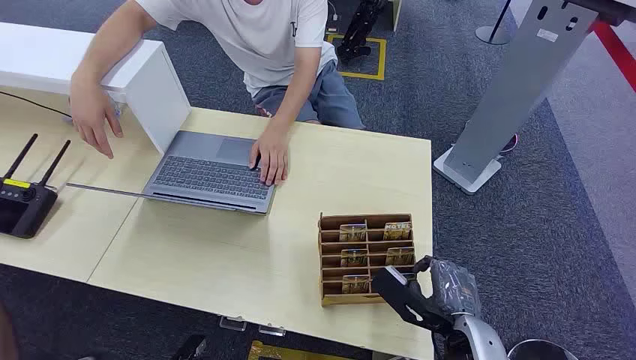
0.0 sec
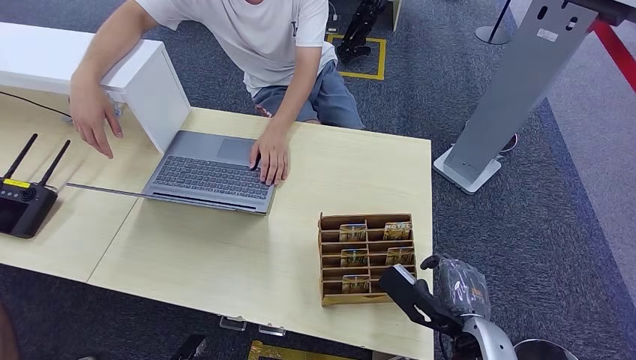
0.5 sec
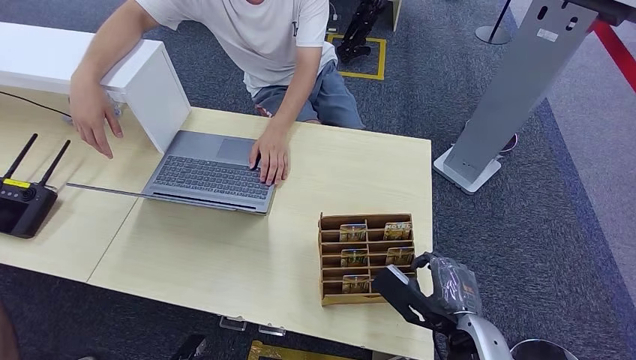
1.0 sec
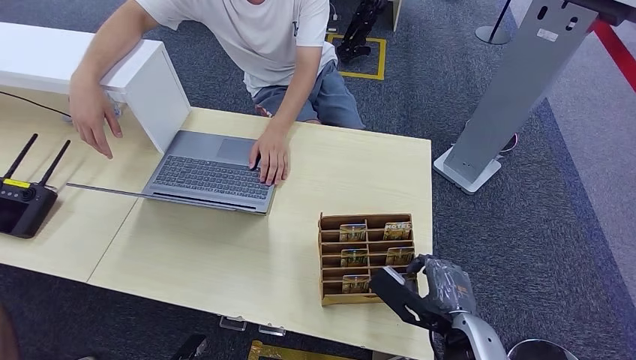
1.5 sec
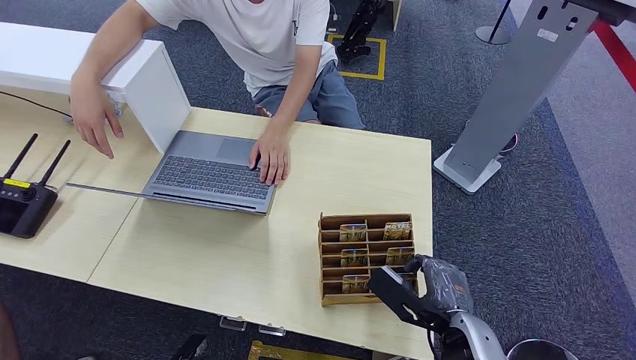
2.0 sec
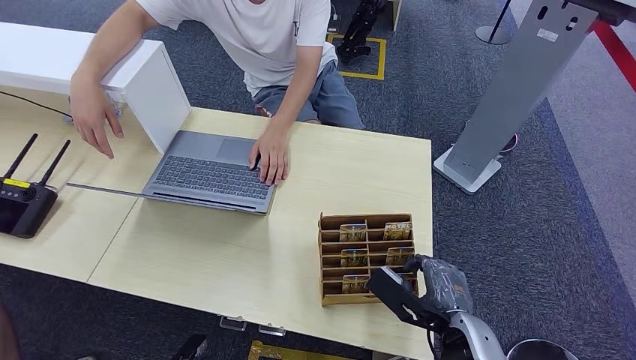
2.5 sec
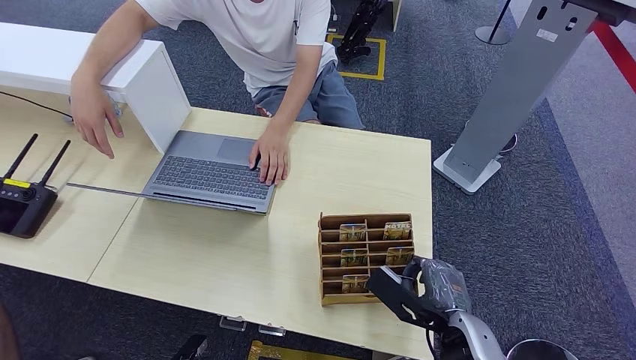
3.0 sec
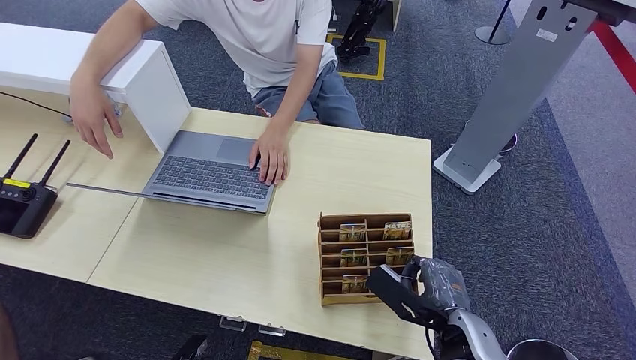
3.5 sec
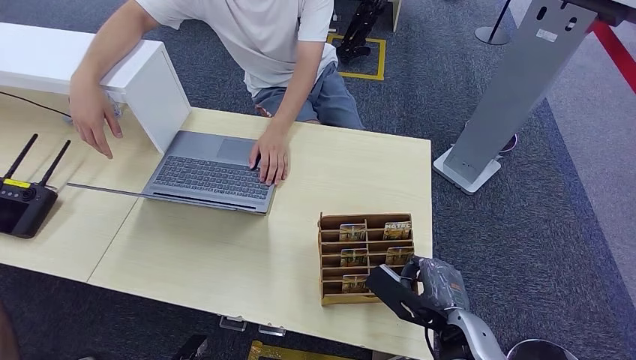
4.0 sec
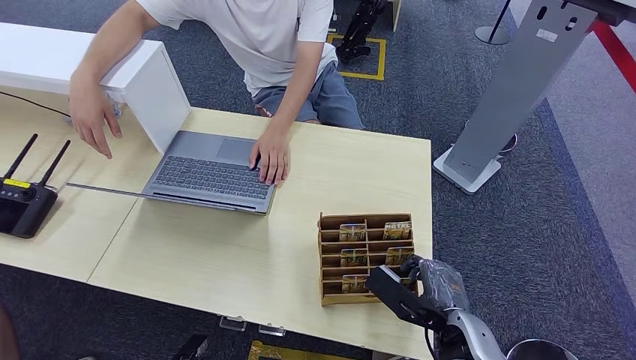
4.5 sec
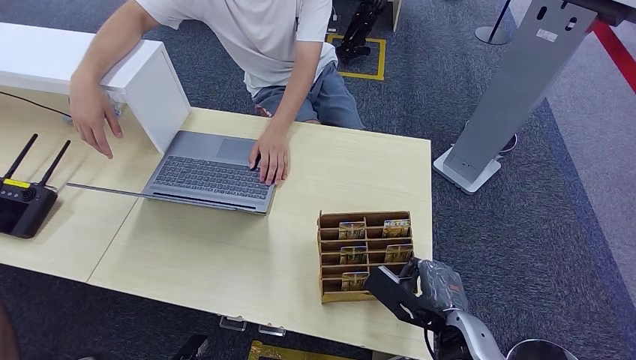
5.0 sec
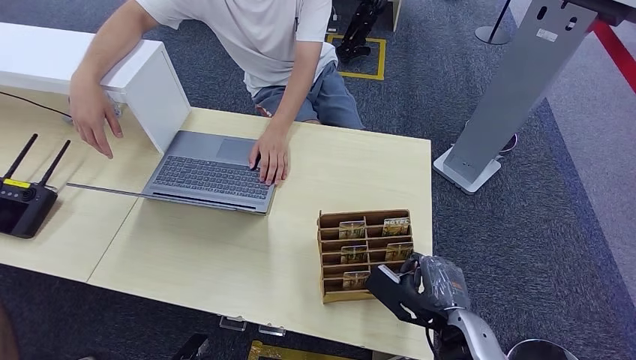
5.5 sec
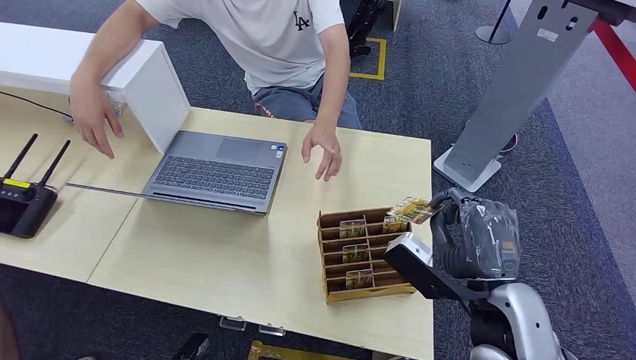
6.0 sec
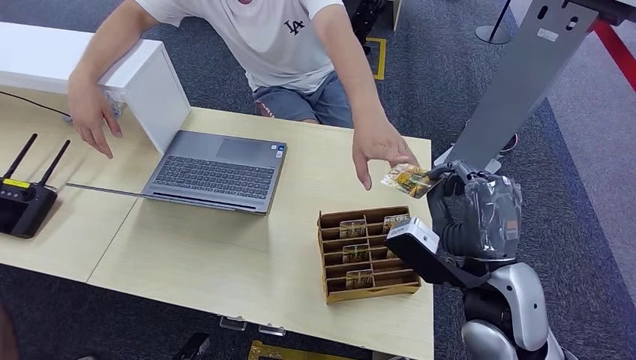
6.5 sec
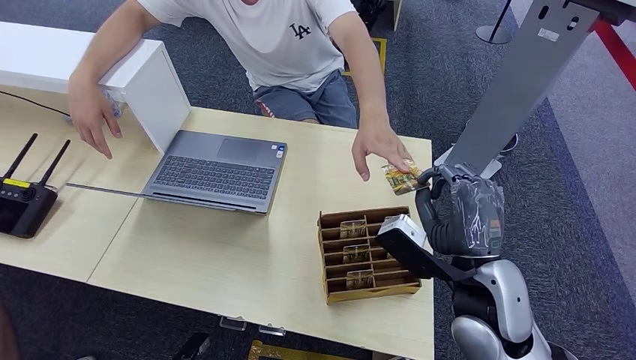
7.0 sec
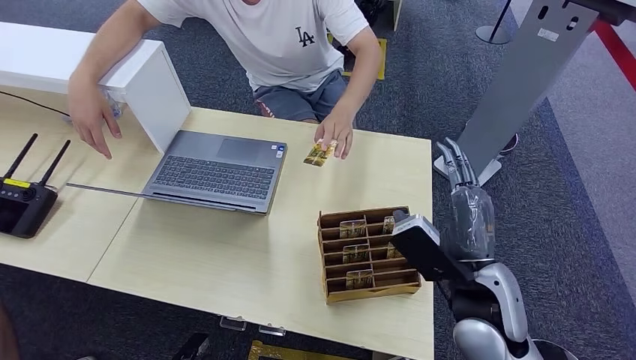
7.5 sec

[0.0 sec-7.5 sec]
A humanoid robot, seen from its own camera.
Step, 0.0 sec to 6.0 sec: Pick up the key card from the card box.
Step, 6.5 sec to 7.5 sec: Hand the key card to the target.
2.0 sec to 5.5 sec: Both hands stay about where they are.
5.5 sec to 7.5 sec: The right hand is displaced upward by roughly 10 cm.

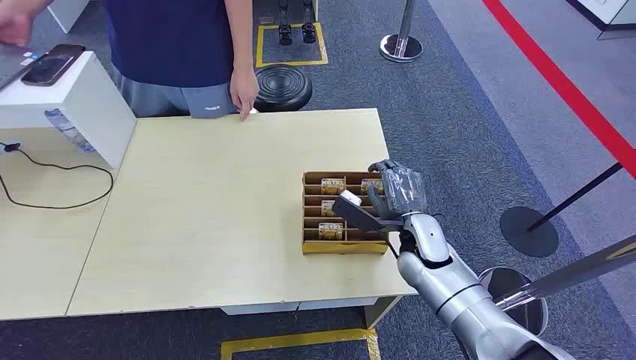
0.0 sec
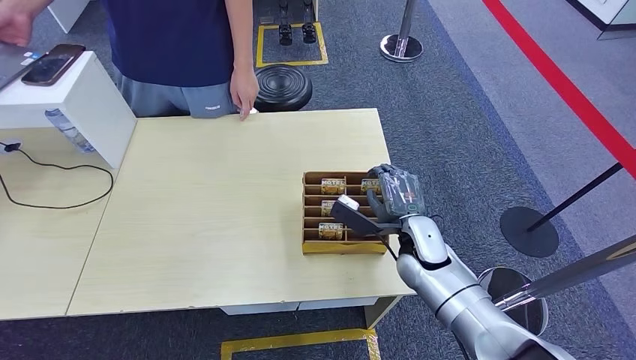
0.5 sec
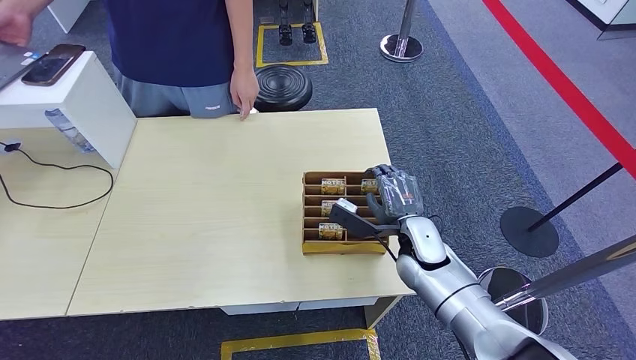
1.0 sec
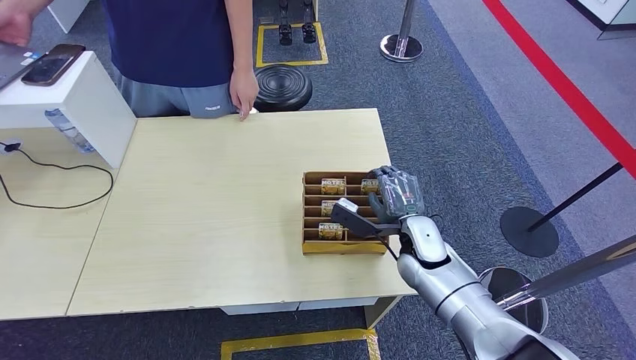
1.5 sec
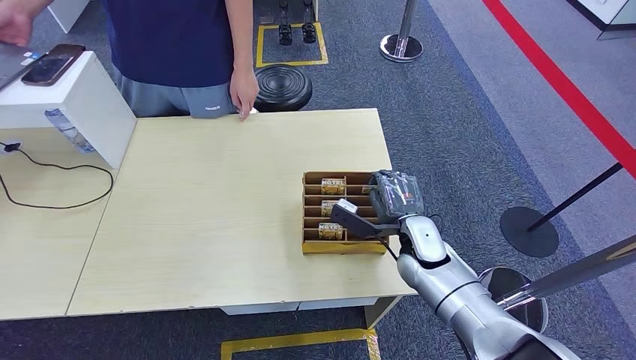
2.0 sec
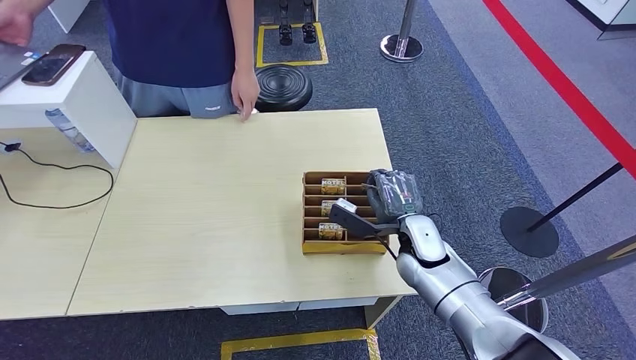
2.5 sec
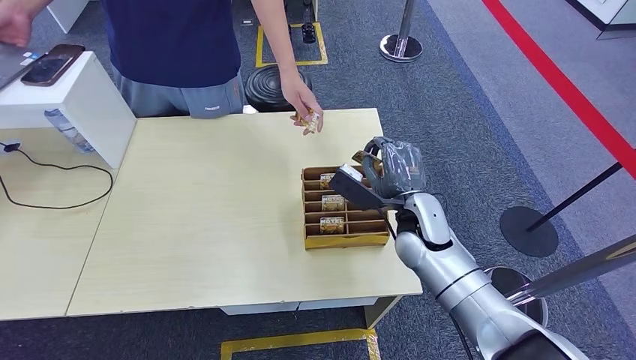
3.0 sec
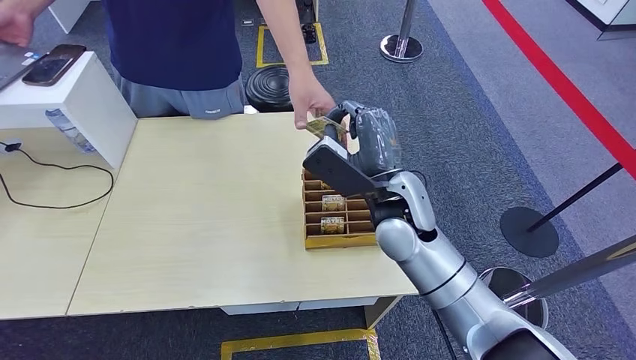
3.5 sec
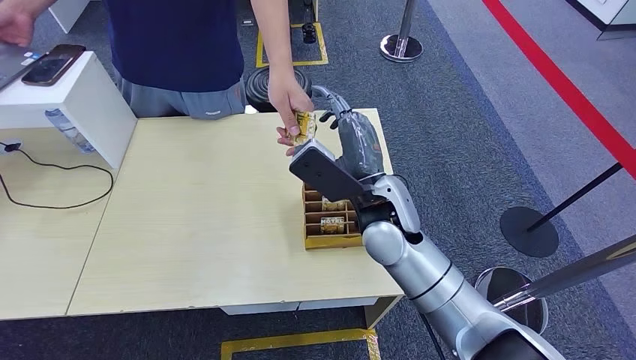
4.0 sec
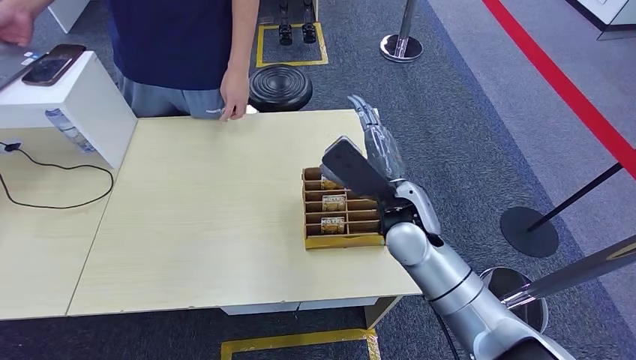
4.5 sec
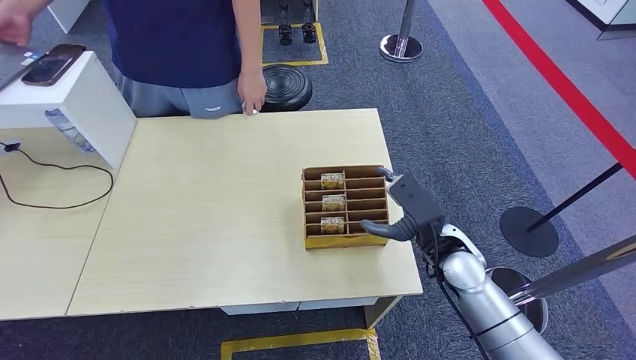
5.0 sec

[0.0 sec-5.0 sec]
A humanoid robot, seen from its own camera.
Step, 0.0 sec to 3.0 sec: Pick up the key card from the card box.
Step, 4.0 sec to 5.0 sec: Hand the key card to the target.
2.5 sec to 5.0 sec: The right hand reaches roughly 10 cm to the left, then returns.
